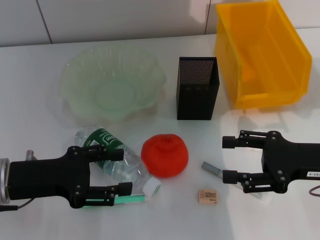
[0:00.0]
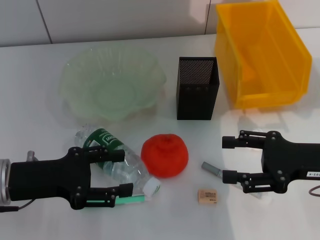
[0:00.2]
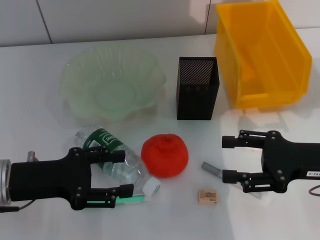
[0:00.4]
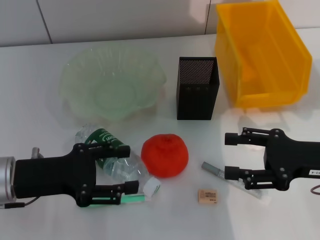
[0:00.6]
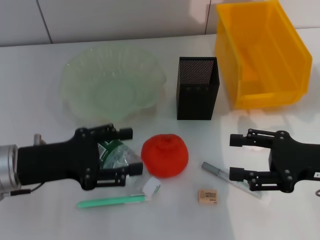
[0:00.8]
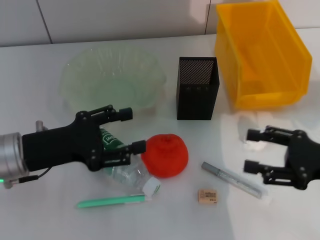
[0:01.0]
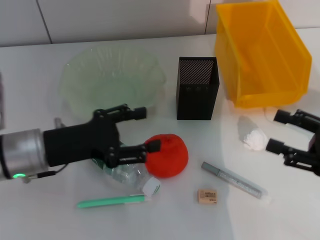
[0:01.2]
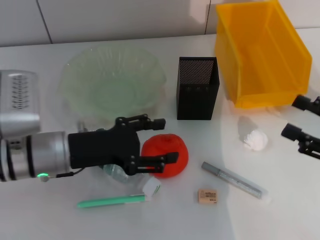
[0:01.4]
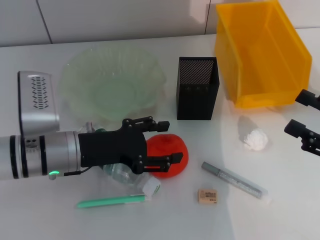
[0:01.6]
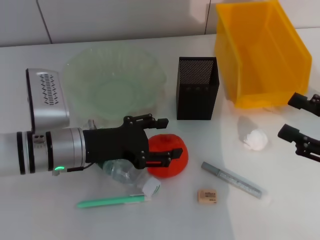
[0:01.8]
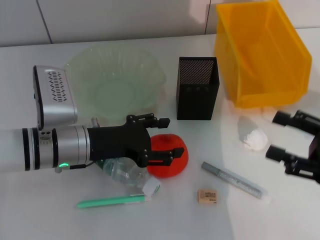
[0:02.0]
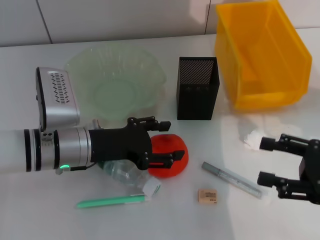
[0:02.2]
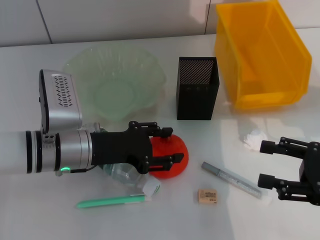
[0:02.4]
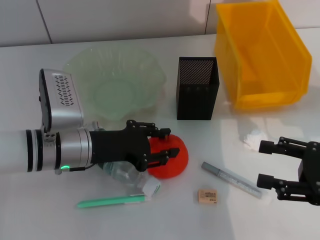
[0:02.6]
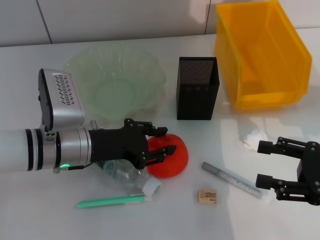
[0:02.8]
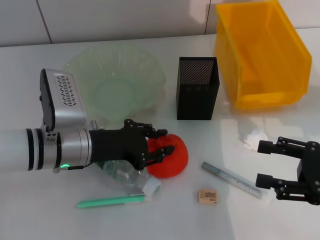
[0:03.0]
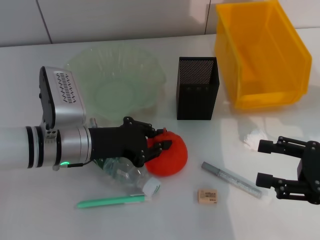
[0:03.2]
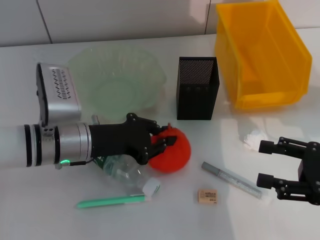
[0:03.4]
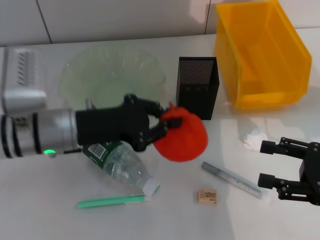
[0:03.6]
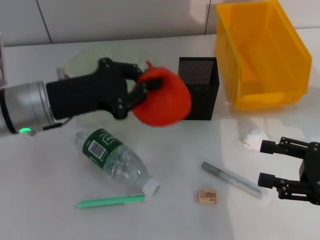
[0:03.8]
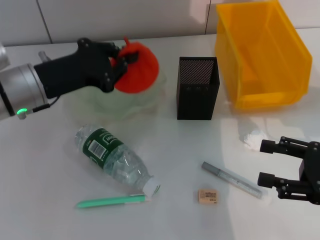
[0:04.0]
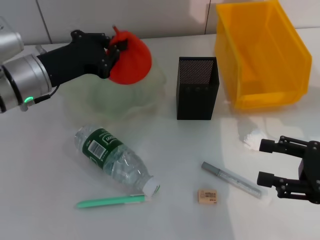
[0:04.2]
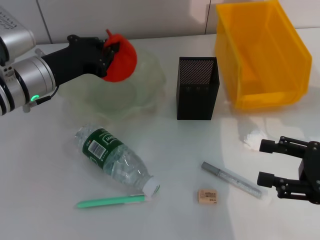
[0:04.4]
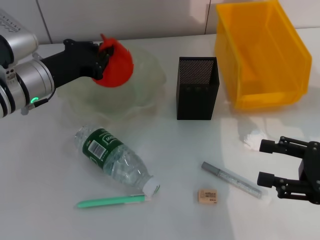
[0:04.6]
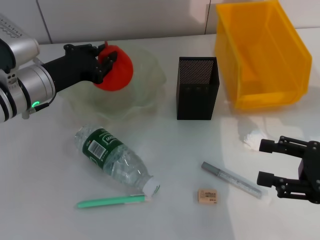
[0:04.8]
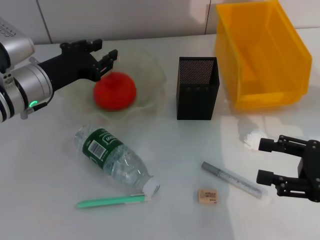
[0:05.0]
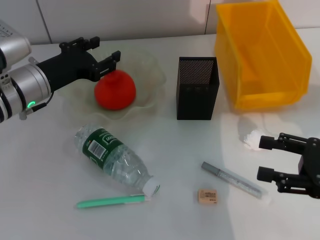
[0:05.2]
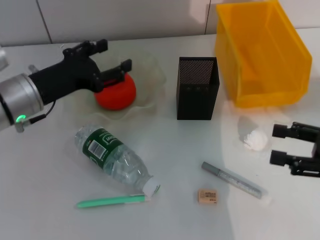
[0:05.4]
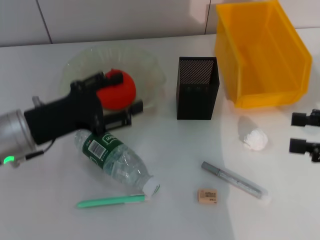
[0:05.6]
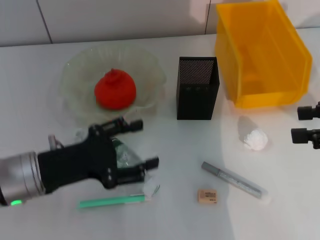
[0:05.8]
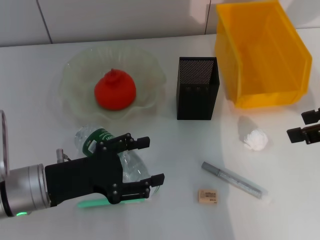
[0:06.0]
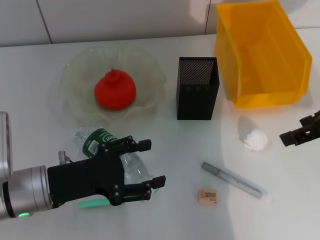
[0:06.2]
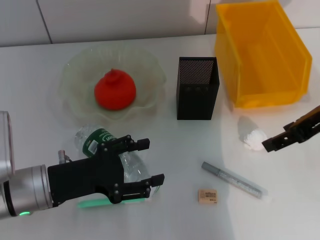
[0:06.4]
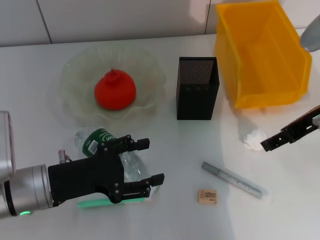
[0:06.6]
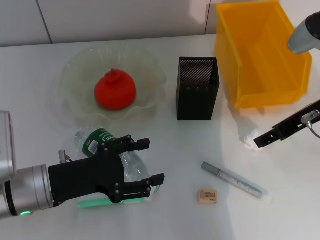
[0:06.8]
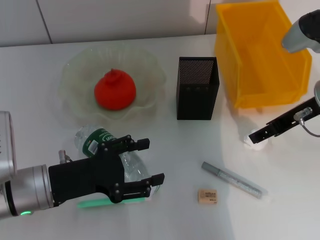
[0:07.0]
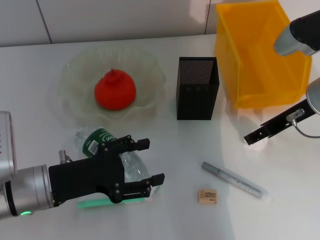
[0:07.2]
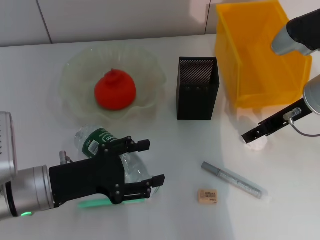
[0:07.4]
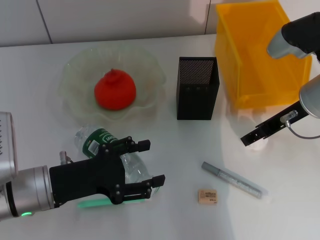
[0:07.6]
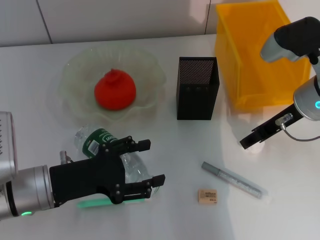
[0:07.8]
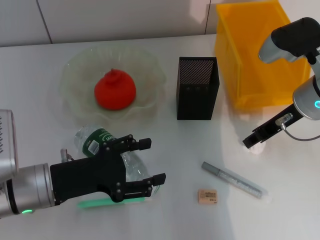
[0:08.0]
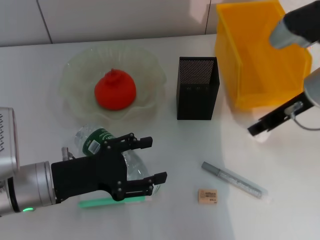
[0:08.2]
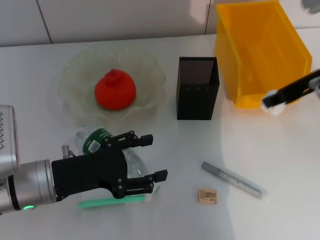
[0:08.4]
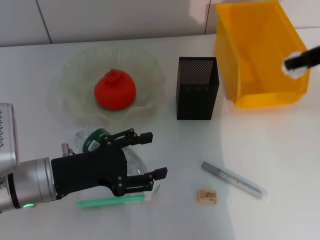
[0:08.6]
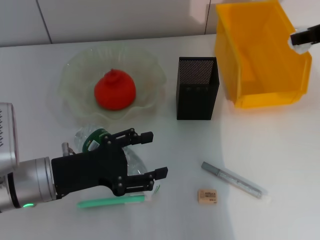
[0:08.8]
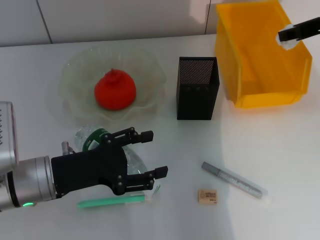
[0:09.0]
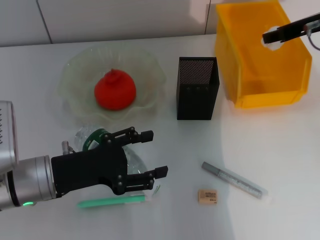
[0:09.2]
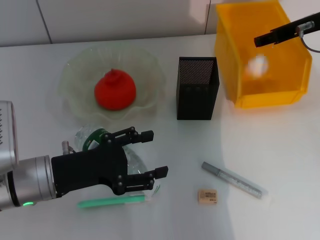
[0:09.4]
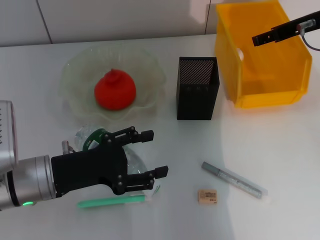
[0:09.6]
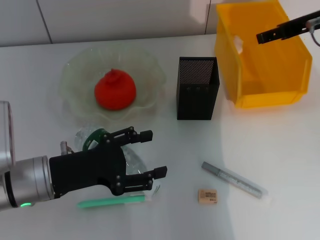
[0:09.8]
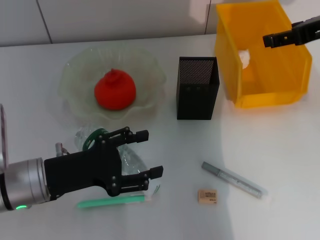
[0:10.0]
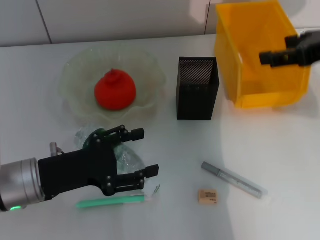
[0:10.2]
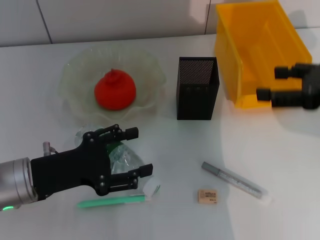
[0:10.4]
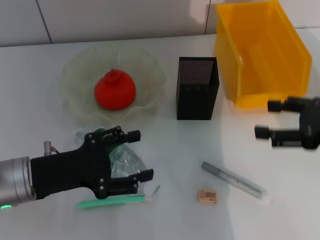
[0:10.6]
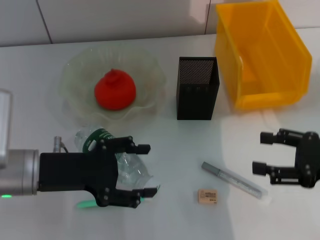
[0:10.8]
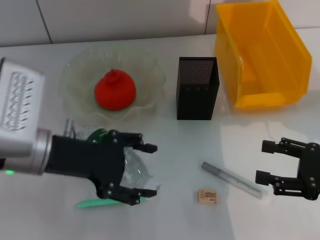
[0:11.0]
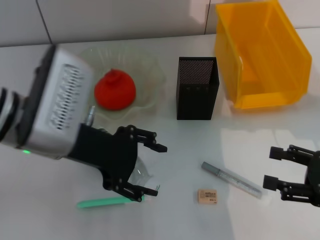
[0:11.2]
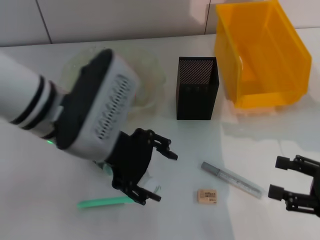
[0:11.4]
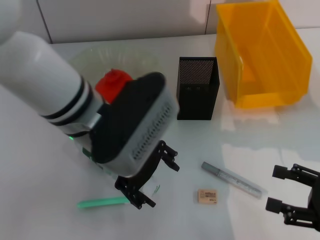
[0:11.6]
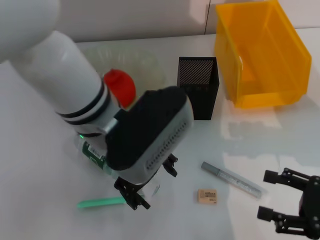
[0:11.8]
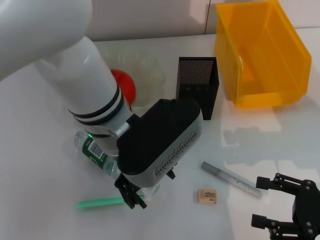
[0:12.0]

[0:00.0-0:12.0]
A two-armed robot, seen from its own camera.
Step, 0.0 to 3.0 s: Grab the orange with the left hand.
Step, 3.4 to 5.2 s: Place the orange into the fruit bowl with the left hand.
Step, 5.4 to 7.8 s: Grab the paper ball with the right hand.
Step, 8.0 to 10.0 s: Place the paper ball into the trash can with the right hand.
0.0 to 1.6 s: Both grippers travel together to the right, roughly 5 cm.
1.6 to 3.0 s: The left gripper closes its fingers.
3.0 to 4.4 s: The left gripper is displaced forward and upward by roughly 10 cm, and closes.
4.4 to 6.0 s: The right gripper travels upward and forward by about 15 cm. The left gripper shifts some 15 cm backward, and opens its fingers.
6.0 to 7.6 s: The right gripper heads to the left, forward and downward, covering about 15 cm.
7.6 to 9.0 s: The right gripper shifts approximately 10 cm upward and to the right, and closes its fingers.
9.0 to 10.4 s: The right gripper shifts roughly 10 cm backward, and opens up.
10.4 to 12.0 s: The right gripper heads downward and backward, covering approximately 15 cm, while the left gripper travels to the right and upward by some 20 cm.

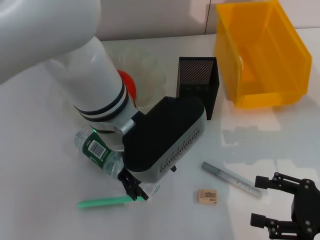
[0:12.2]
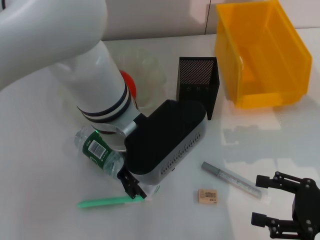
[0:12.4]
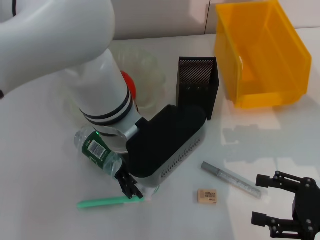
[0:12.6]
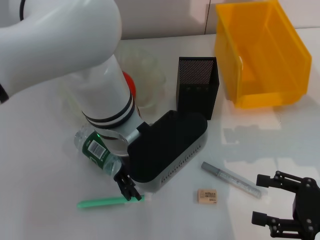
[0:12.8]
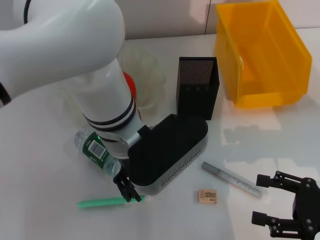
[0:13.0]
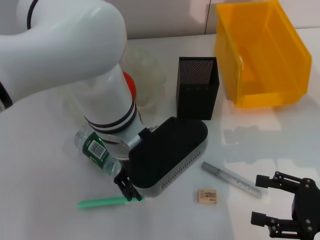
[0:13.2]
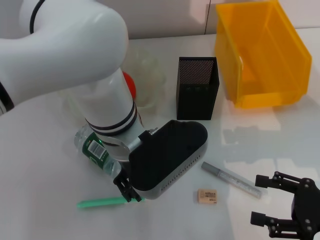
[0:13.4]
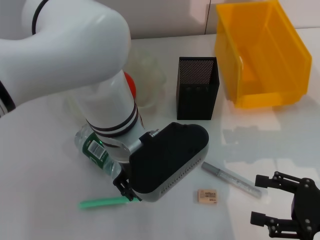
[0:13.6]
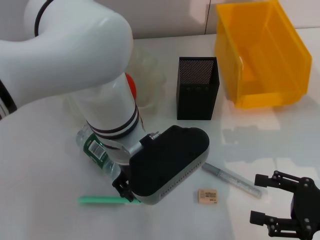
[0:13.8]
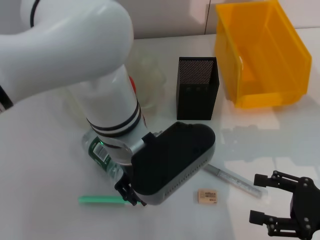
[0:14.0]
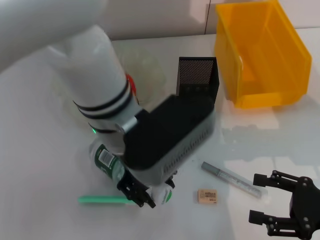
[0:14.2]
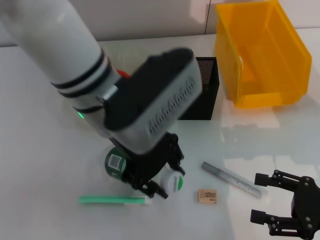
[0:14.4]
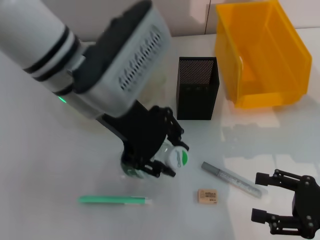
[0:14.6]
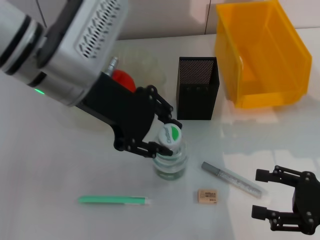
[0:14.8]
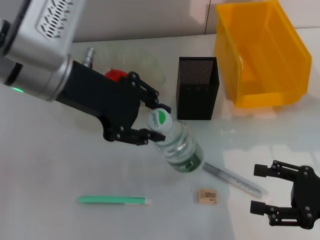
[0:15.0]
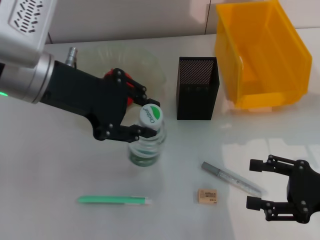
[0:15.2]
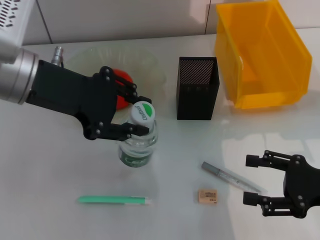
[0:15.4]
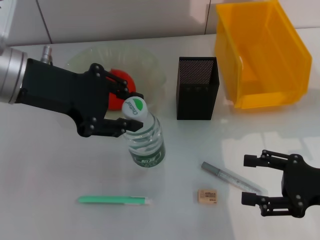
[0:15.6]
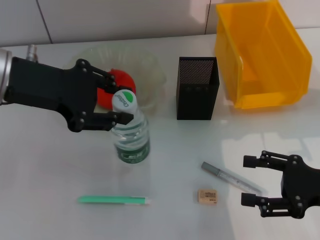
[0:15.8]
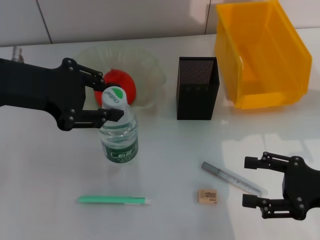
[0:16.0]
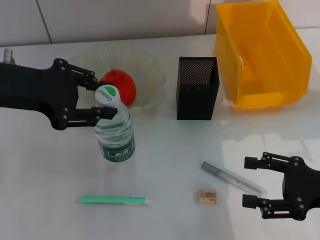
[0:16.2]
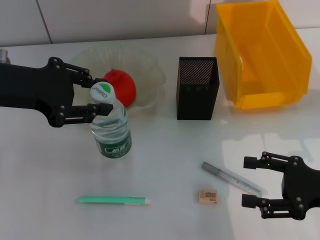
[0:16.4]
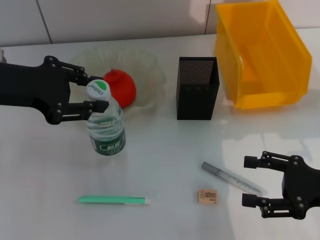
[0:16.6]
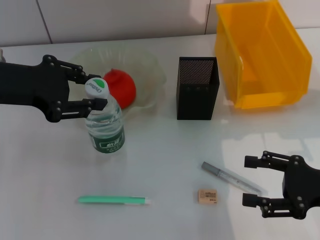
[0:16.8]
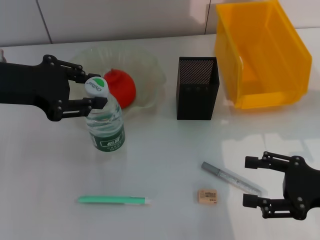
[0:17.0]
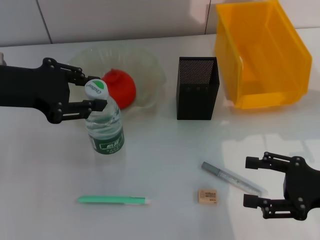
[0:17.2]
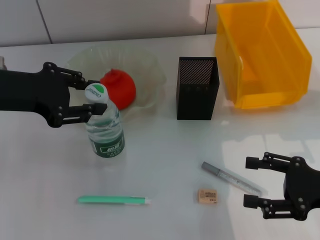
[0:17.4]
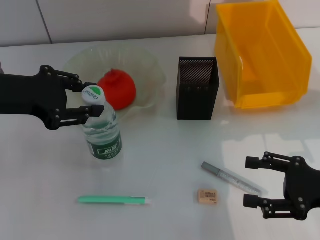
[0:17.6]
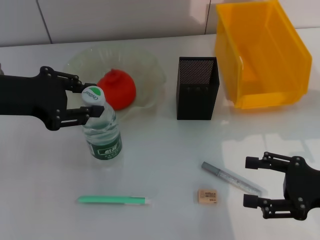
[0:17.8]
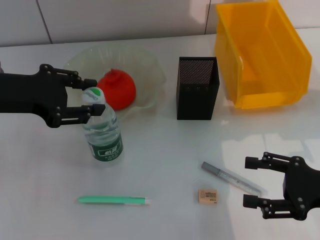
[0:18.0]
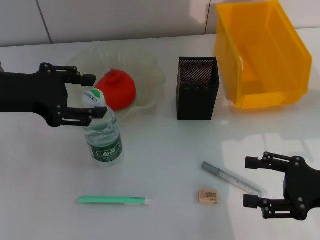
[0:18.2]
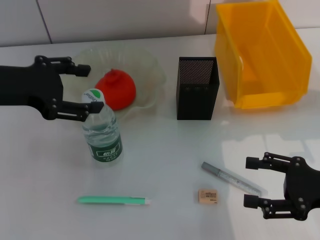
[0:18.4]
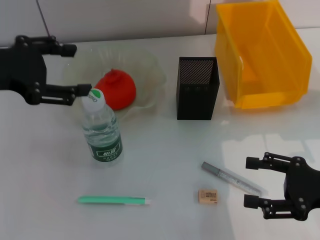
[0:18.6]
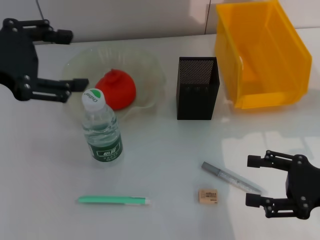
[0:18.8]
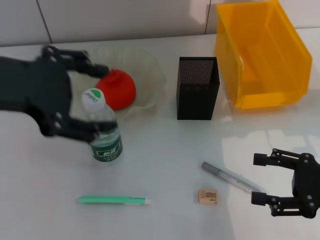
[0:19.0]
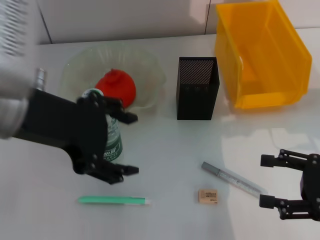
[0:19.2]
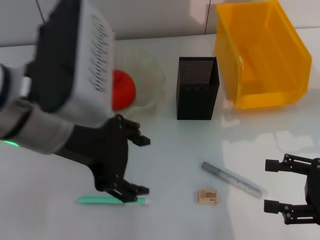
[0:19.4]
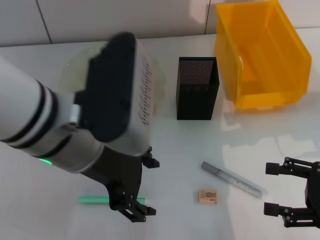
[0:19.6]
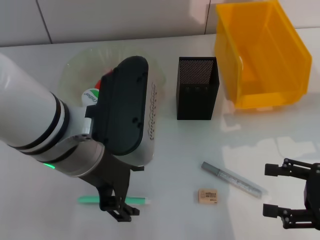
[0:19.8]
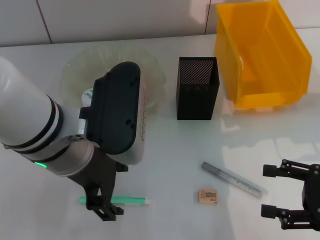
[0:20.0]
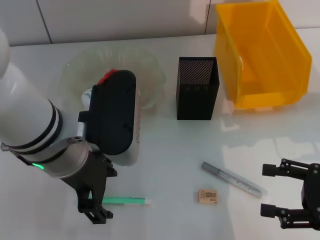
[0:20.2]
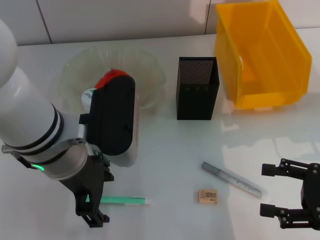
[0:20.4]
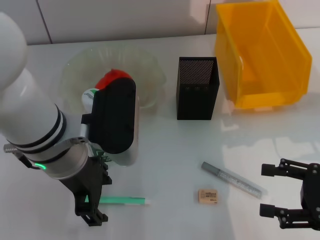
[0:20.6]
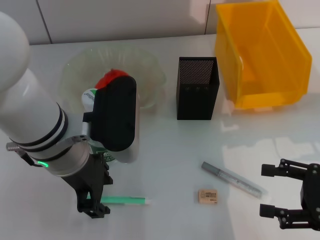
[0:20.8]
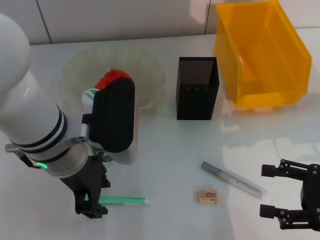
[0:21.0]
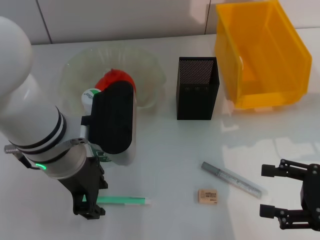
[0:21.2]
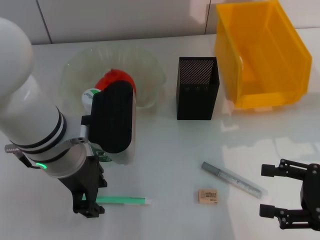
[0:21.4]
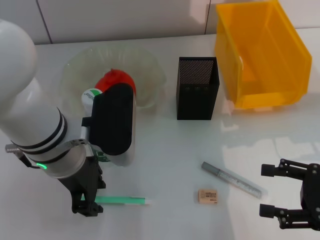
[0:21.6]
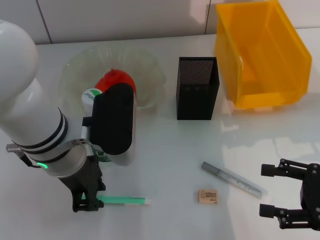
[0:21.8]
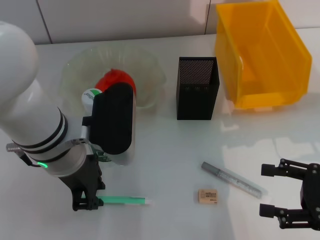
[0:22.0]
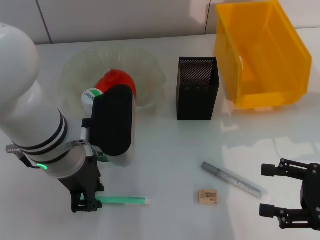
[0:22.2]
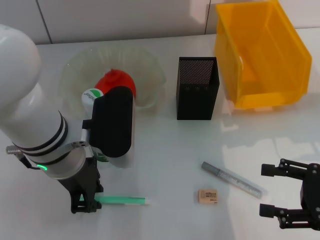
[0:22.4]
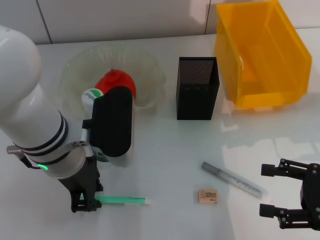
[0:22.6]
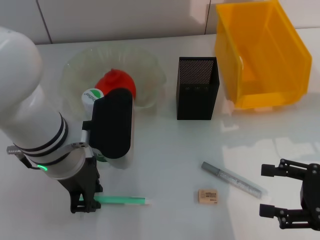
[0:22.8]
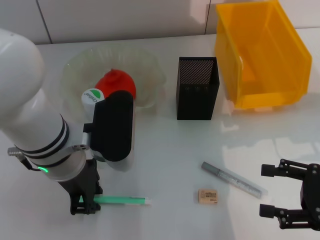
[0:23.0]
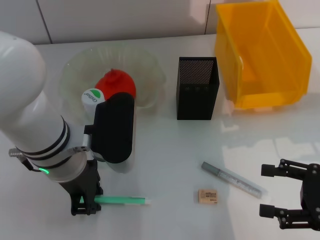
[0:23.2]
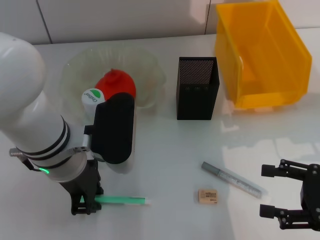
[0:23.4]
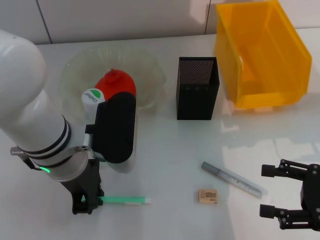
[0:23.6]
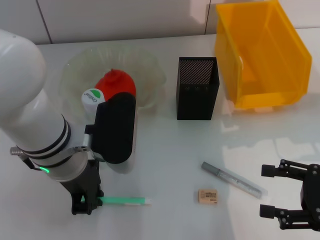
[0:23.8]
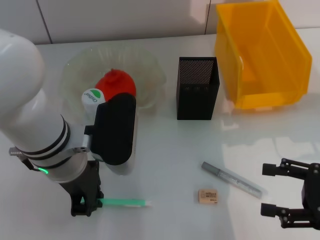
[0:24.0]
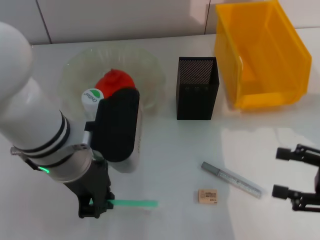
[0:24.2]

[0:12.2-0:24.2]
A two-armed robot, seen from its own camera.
Step, 14.2 to 18.4 s: Place the water bottle on the table with the left hand.
Step, 18.6 to 24.0 s: Grab the blue utility knife with the left hand.
12.2 to 13.8 s: The left gripper closes.
13.8 to 15.2 s: The left gripper shifts about 15 cm to the left and upward.
15.2 to 16.6 s: The left gripper travels to the left by about 5 cm.
16.6 to 18.2 s: The grippers make only small movements.
18.2 to 19.8 s: The left gripper is displaced to the right and backward by about 15 cm, and opens.
19.8 to 21.2 s: The left gripper shifts by about 5 cm, and closes up.
21.2 to 24.2 s: There are only small adjustments of the grippers.
